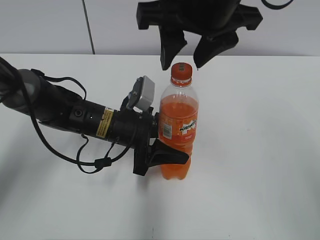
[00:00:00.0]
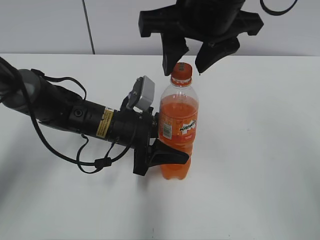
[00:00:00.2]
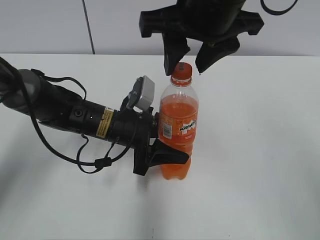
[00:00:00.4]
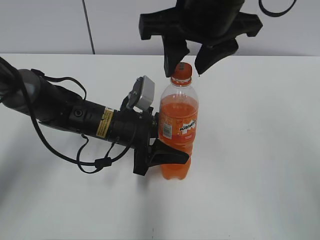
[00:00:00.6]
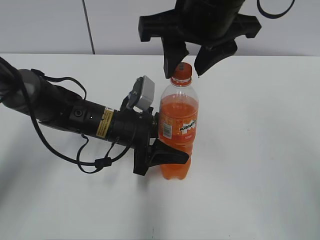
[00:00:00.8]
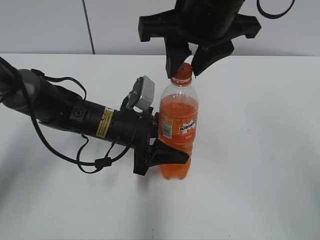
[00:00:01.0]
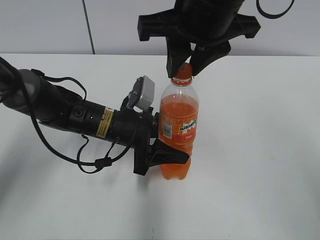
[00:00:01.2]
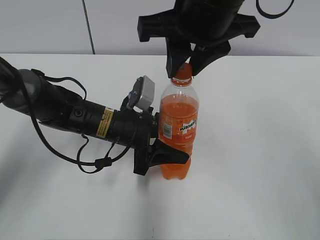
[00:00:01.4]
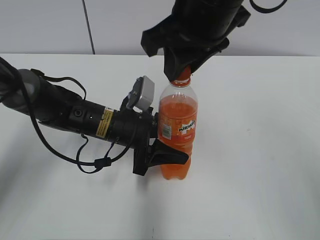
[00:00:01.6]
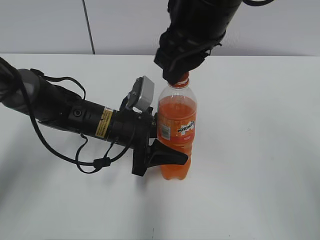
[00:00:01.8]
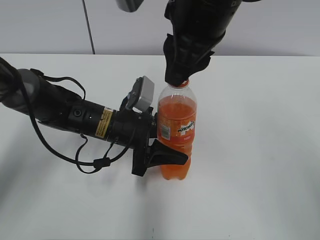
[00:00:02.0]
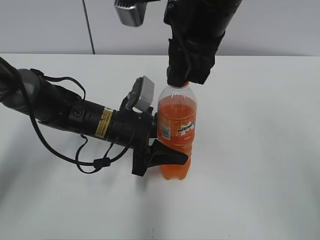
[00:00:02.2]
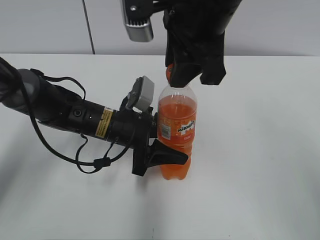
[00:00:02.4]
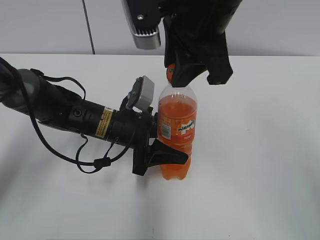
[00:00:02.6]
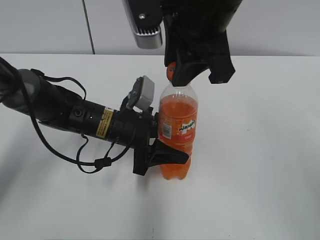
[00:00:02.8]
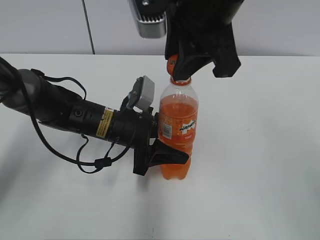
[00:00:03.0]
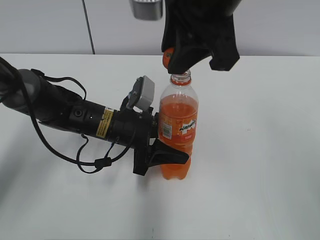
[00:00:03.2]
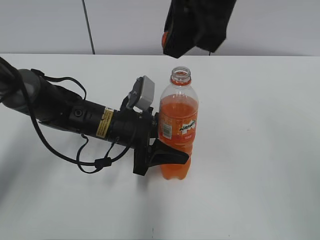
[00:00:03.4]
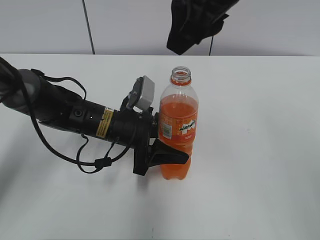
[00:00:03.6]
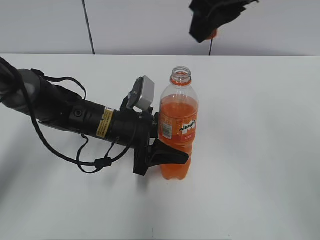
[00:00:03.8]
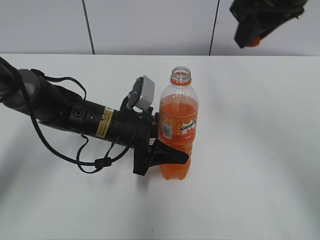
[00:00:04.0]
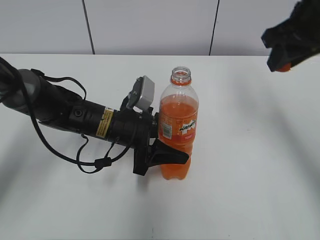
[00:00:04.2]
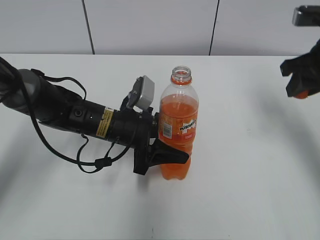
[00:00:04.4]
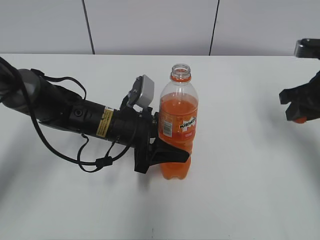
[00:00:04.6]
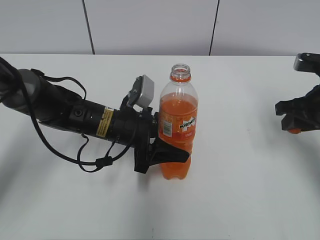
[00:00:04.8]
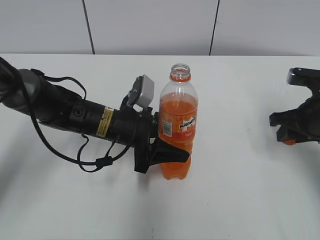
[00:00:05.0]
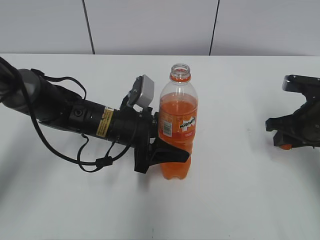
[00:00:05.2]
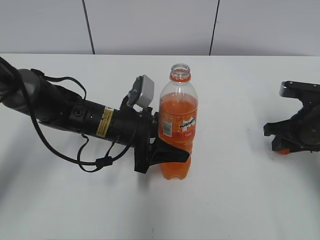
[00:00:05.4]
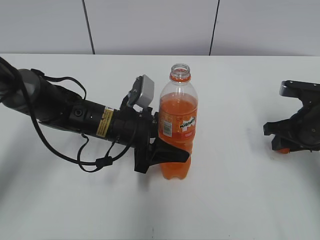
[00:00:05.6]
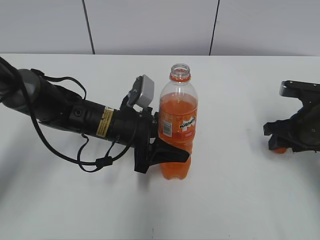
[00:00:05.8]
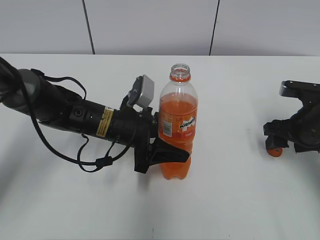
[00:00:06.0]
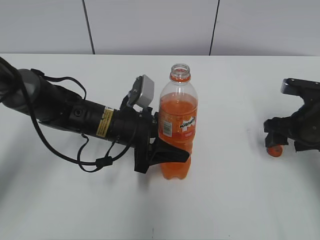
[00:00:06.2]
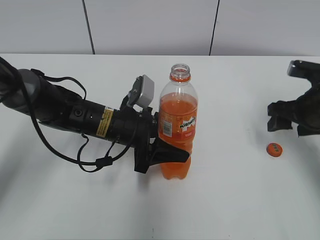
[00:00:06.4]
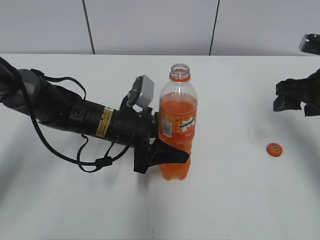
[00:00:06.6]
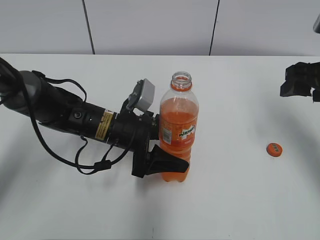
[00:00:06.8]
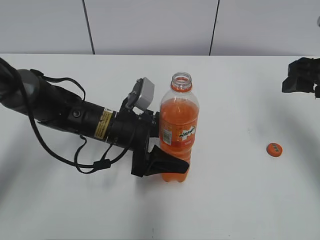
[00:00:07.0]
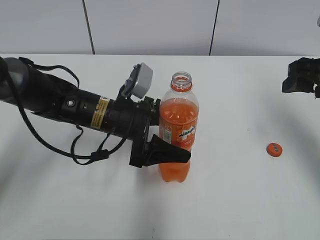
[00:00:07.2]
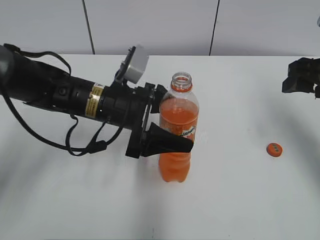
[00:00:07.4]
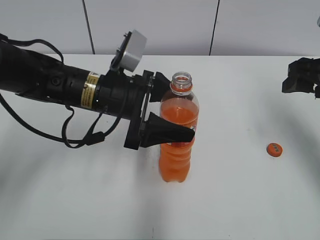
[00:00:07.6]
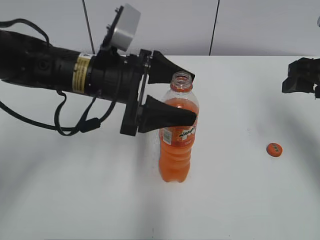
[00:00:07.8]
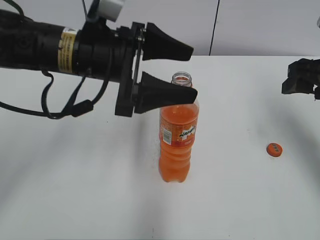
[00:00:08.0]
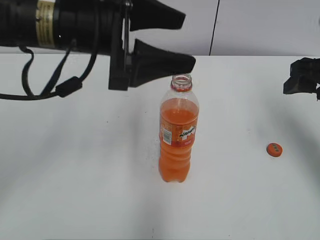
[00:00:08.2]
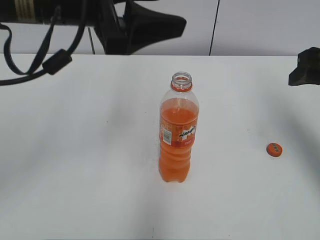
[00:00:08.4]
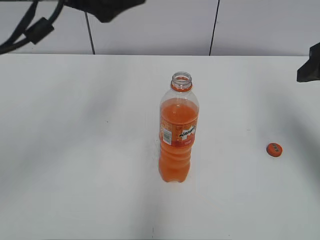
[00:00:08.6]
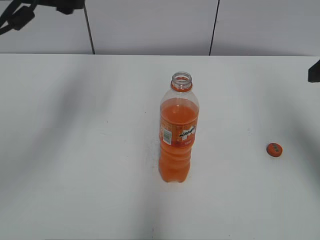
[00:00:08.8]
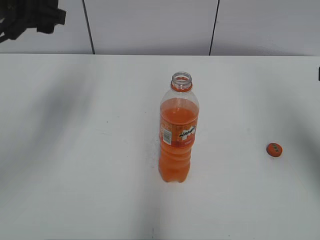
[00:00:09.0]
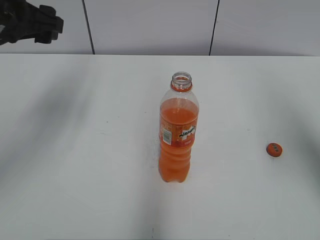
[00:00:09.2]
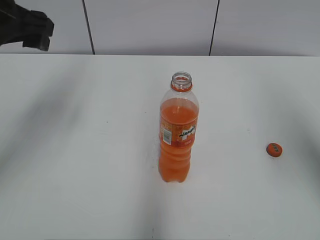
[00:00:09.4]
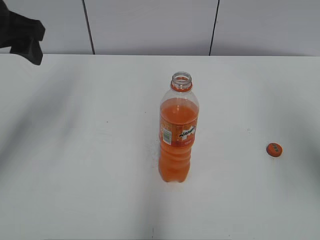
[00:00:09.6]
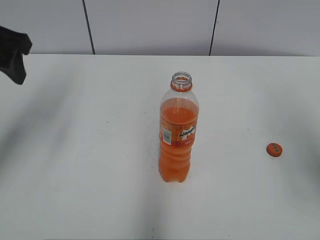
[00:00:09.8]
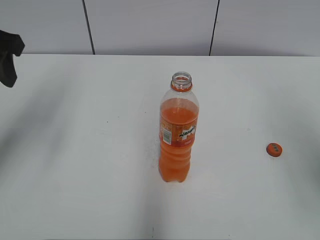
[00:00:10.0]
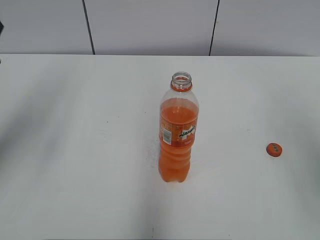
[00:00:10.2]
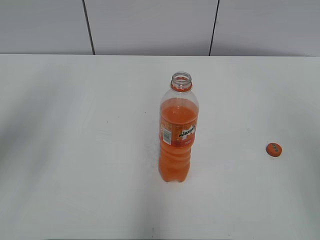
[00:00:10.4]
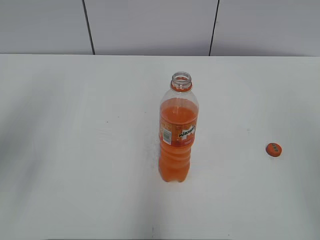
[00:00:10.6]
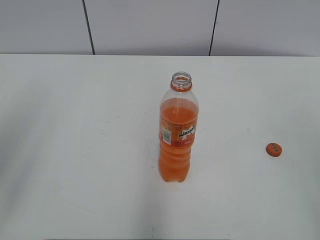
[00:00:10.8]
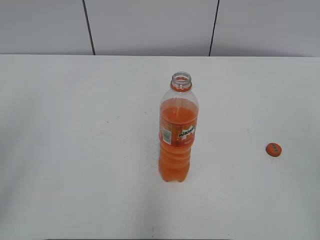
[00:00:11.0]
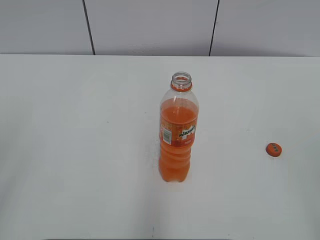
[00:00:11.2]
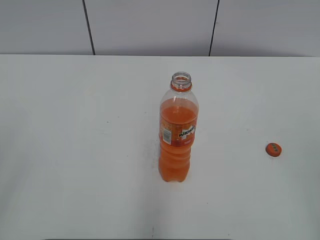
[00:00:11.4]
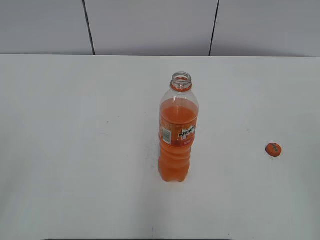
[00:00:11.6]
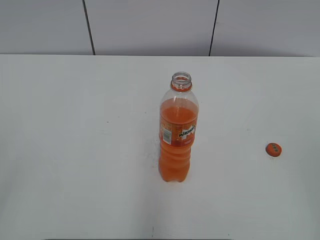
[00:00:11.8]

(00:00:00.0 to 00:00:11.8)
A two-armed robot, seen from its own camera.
Step, 00:00:03.2 - 00:00:06.0: Place the bottle cap on the right.
00:00:00.0 - 00:00:01.4: The right gripper closes up.
00:00:03.0 - 00:00:04.4: The right gripper moves to the right and downward, about 25 cm.
00:00:04.4 - 00:00:06.0: The right gripper moves downward, approximately 15 cm, and opens its fingers.
00:00:06.0 - 00:00:07.4: The left gripper shifts about 5 cm upward, and opens; the right gripper is displaced upward by roughly 10 cm.
00:00:07.4 - 00:00:08.8: The left gripper shifts some 20 cm upward and to the left. The right gripper goes roughly 10 cm upward and backward.
00:00:08.8 - 00:00:10.4: The left gripper is displaced backward and to the left by approximately 10 cm, and closes its fingers. Meanwhile the right gripper is displaced backward and upward by some 15 cm.
00:00:10.4 - 00:00:11.8: The left gripper shifts approximately 20 cm backward.
